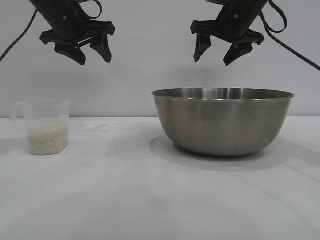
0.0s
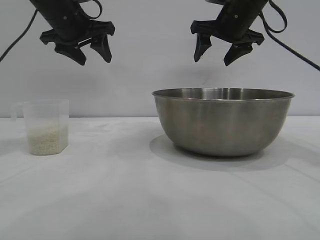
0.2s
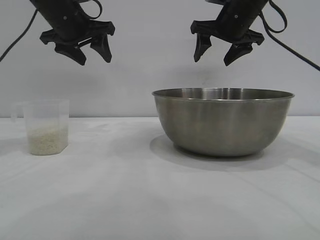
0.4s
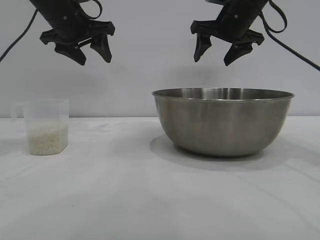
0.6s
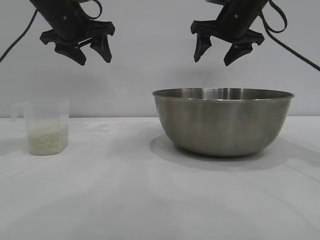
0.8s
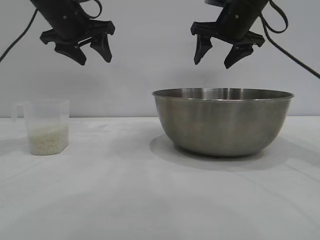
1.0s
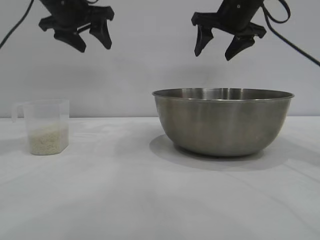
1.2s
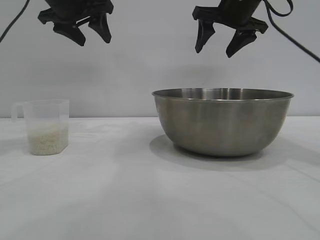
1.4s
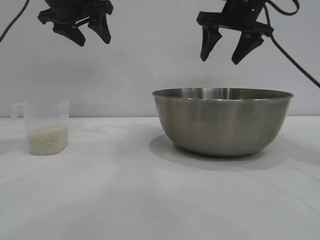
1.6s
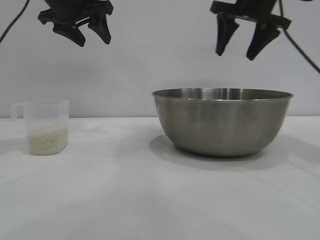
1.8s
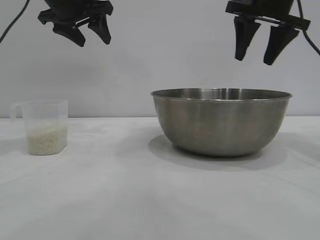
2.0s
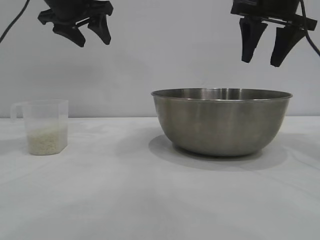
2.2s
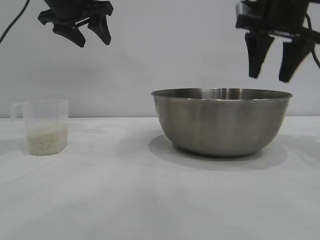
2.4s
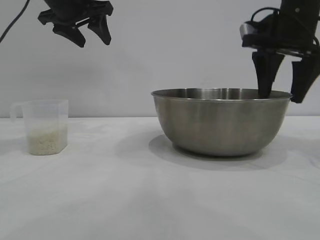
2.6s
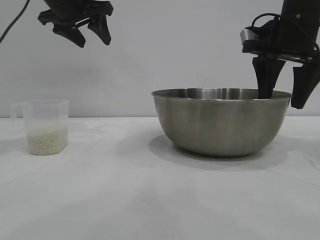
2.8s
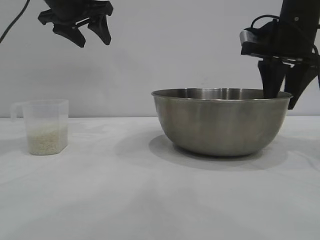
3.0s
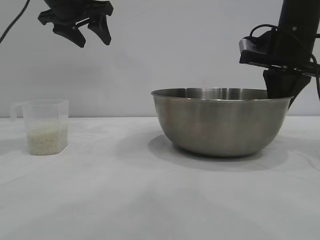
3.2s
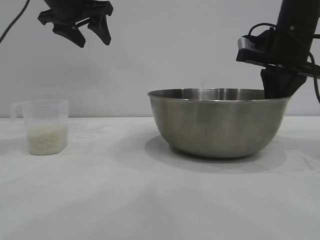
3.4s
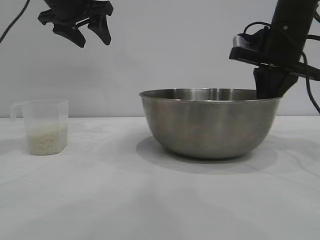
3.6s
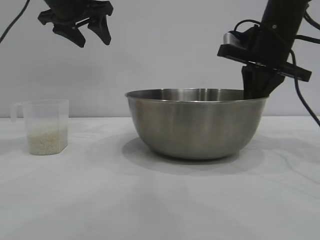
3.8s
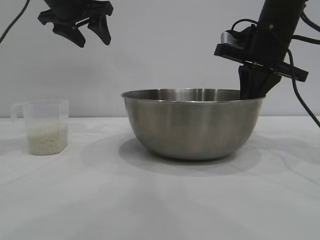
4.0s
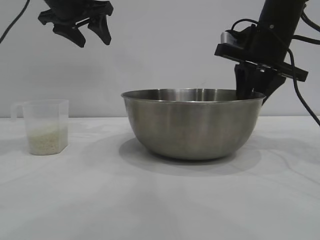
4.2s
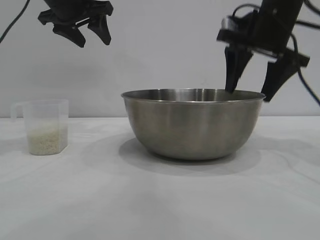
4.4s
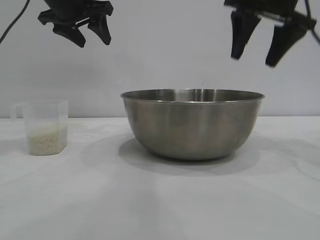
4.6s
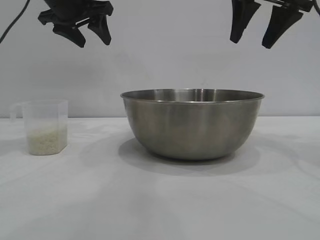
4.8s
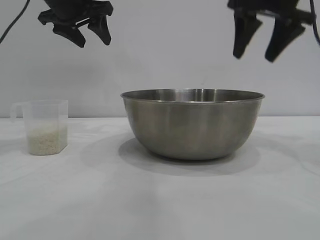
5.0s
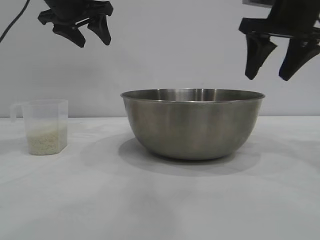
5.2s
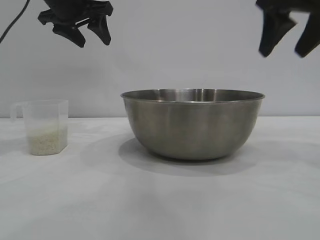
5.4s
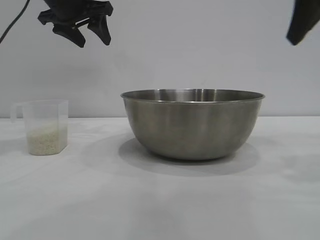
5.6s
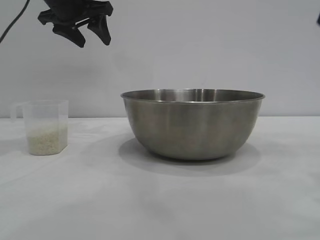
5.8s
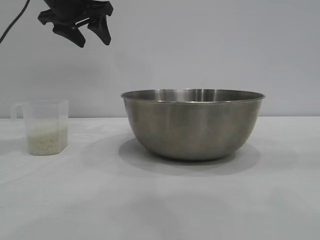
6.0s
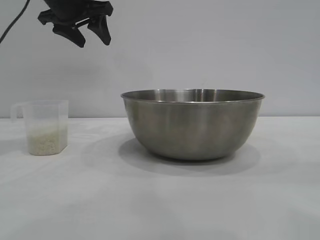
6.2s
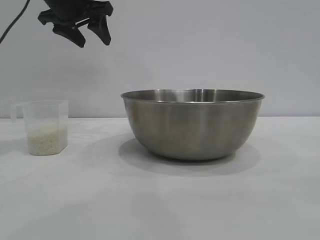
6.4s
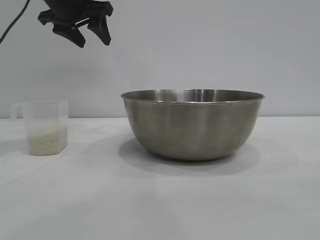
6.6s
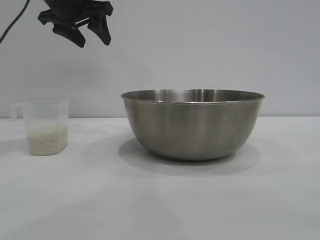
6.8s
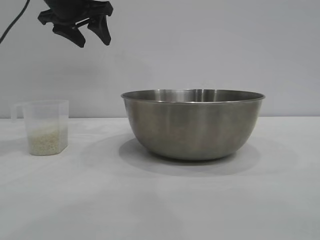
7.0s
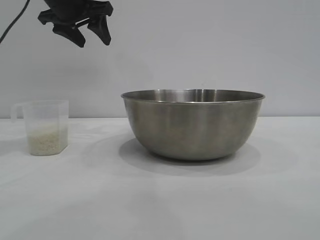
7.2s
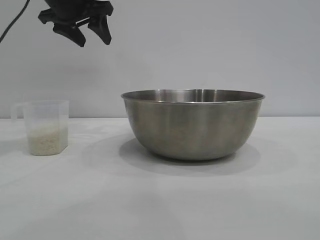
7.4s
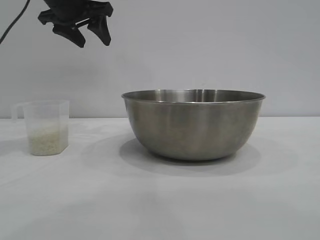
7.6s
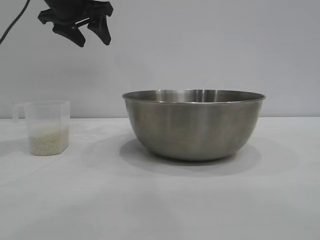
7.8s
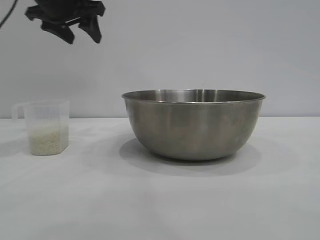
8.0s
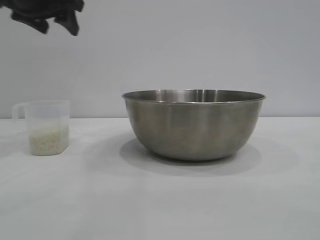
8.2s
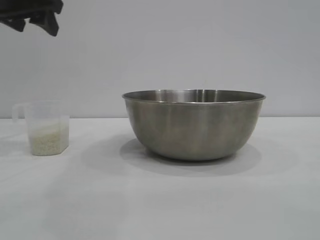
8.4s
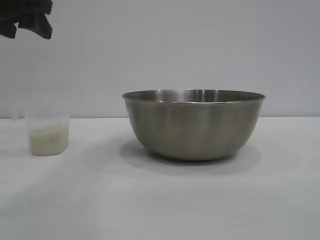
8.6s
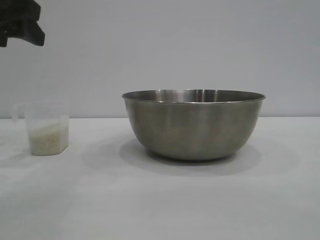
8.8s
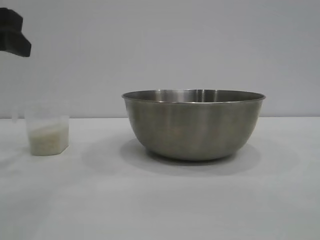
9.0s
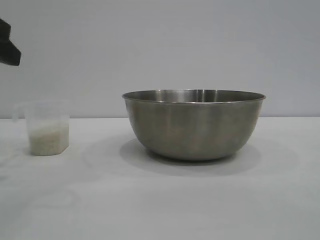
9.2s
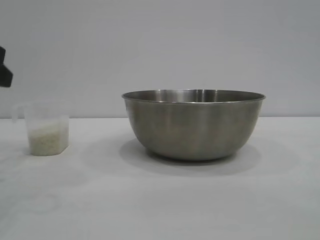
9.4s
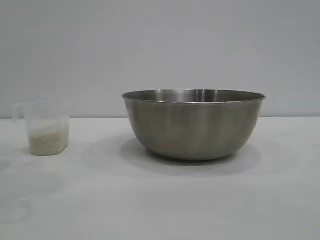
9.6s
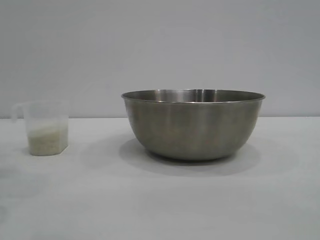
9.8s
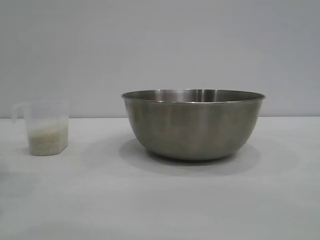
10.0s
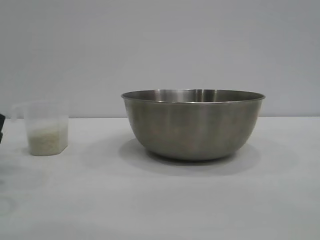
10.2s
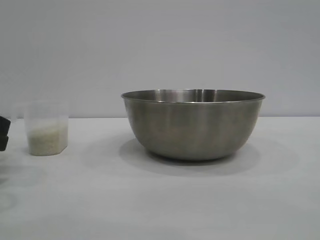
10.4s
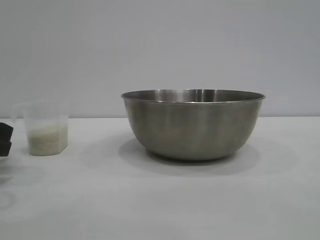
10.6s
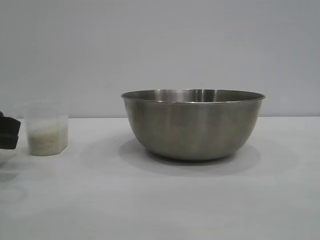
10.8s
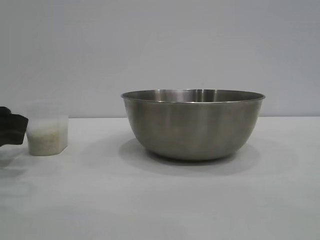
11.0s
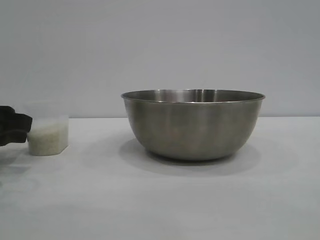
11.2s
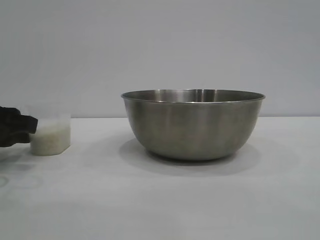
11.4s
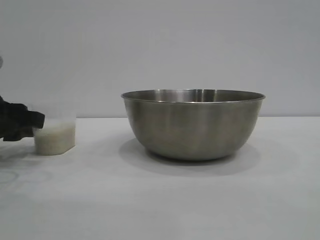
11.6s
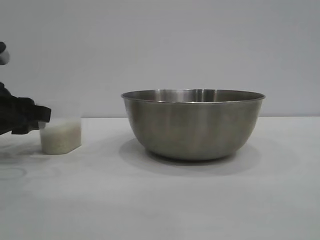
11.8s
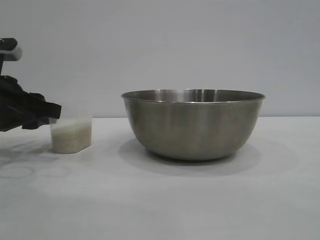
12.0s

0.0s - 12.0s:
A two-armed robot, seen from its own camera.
Task of the whole recording: the right gripper grasp the rice container and place it in the center of the table, the left gripper grasp the rice scoop and pour the rice into the rice container.
Step, 0.0s - 4.4s: Move the bowl to the center of view with the right gripper.

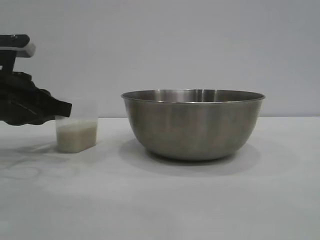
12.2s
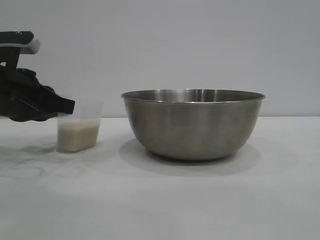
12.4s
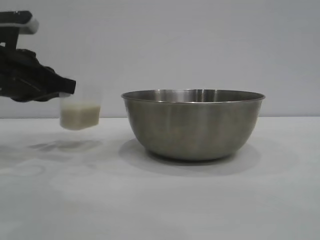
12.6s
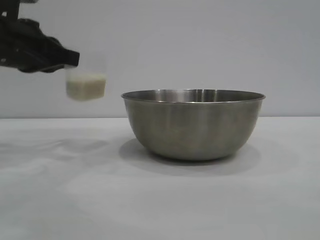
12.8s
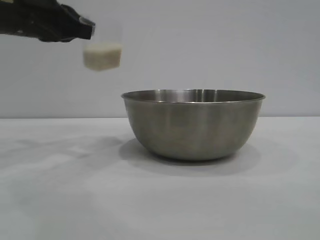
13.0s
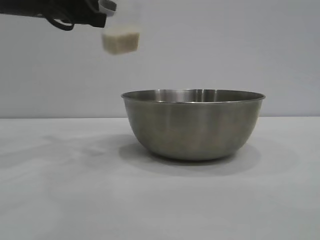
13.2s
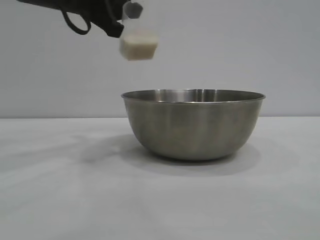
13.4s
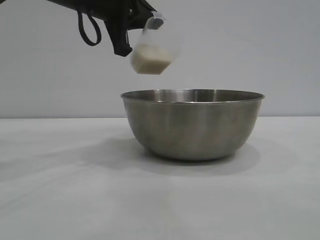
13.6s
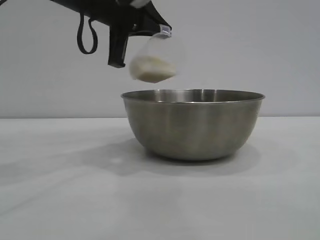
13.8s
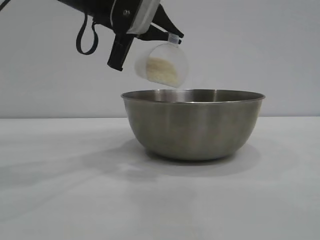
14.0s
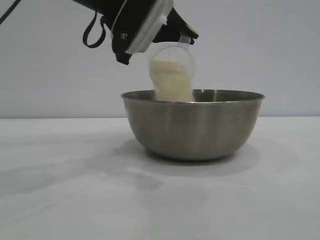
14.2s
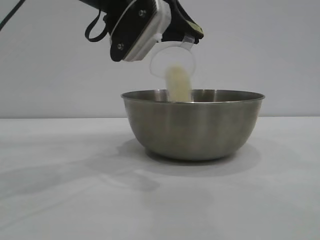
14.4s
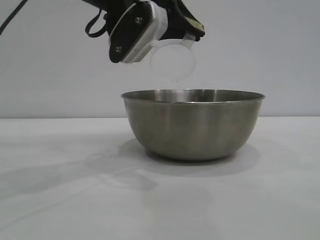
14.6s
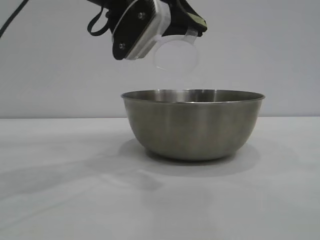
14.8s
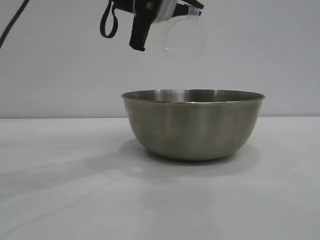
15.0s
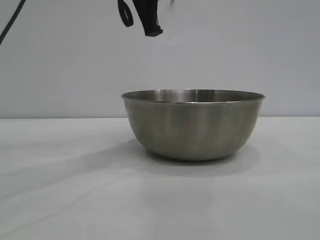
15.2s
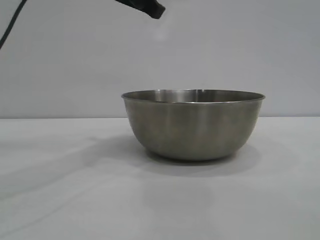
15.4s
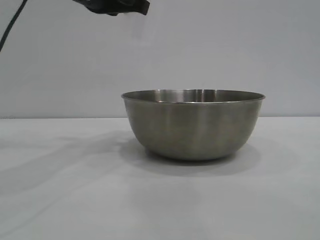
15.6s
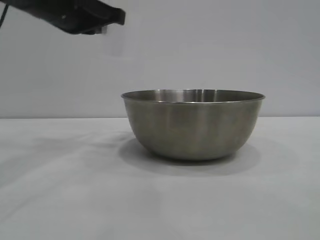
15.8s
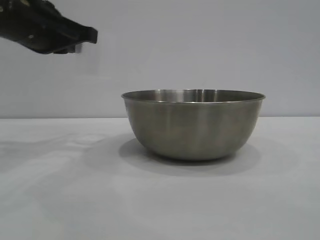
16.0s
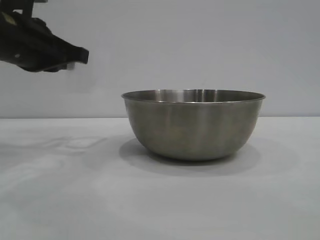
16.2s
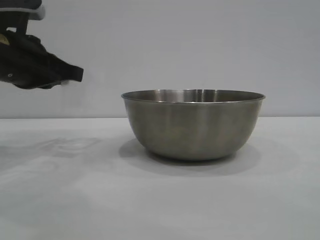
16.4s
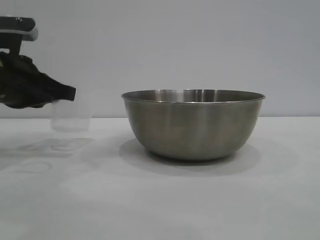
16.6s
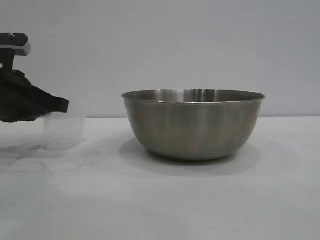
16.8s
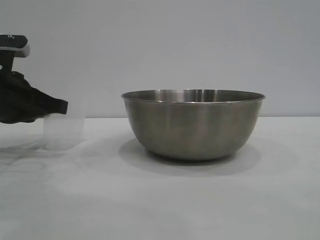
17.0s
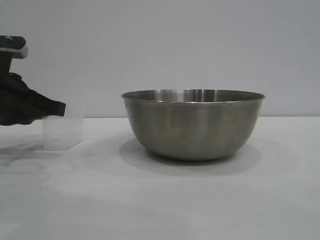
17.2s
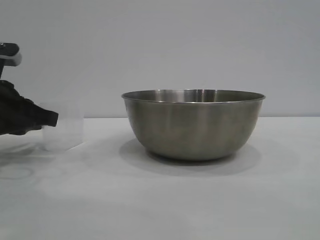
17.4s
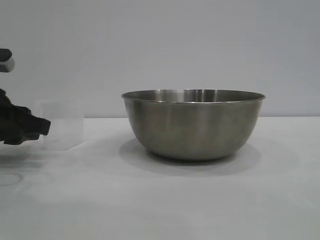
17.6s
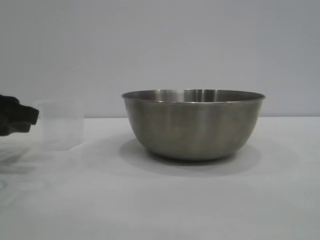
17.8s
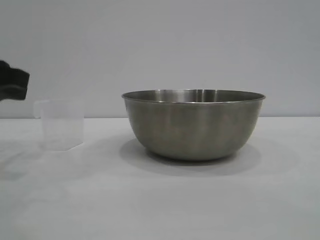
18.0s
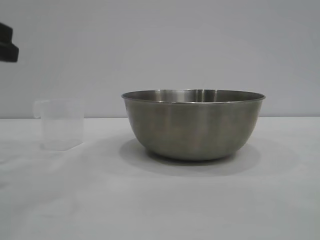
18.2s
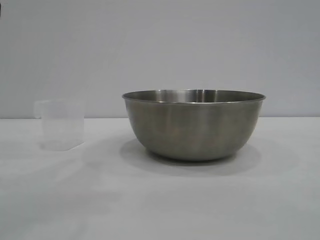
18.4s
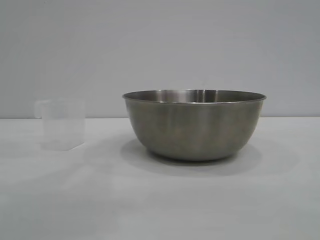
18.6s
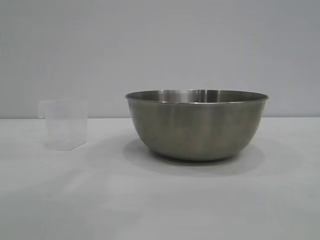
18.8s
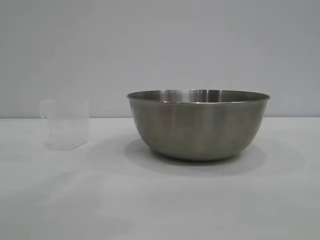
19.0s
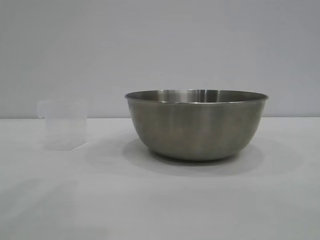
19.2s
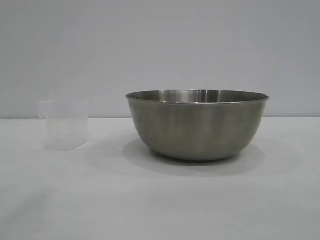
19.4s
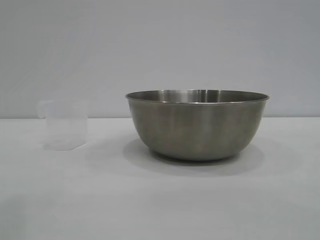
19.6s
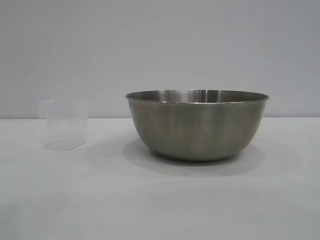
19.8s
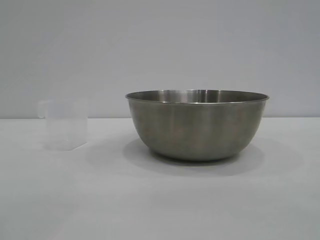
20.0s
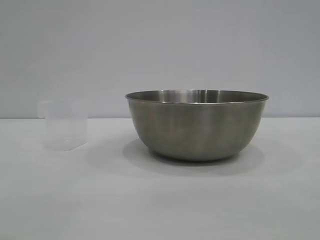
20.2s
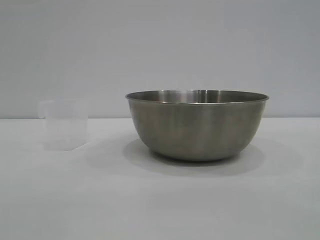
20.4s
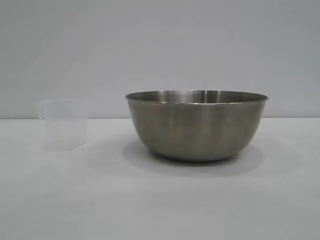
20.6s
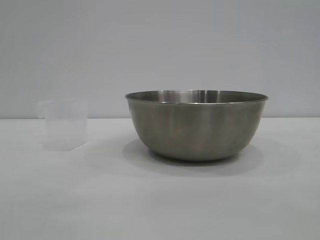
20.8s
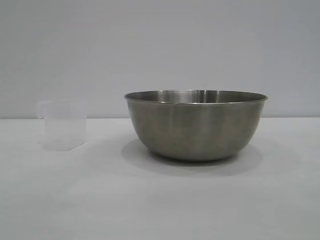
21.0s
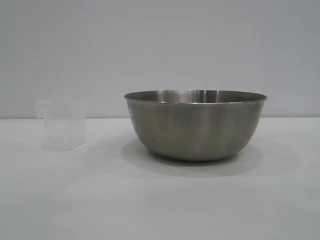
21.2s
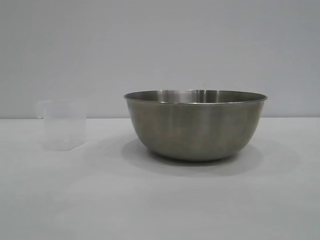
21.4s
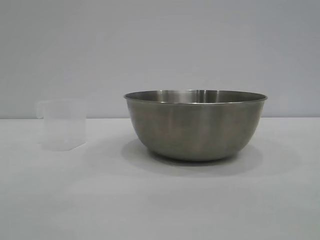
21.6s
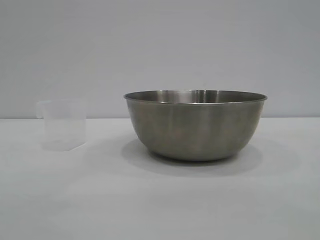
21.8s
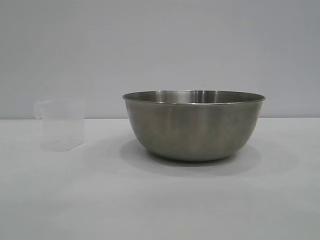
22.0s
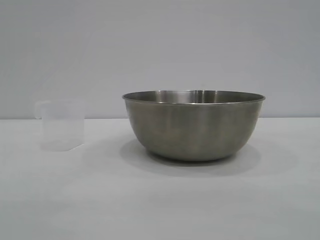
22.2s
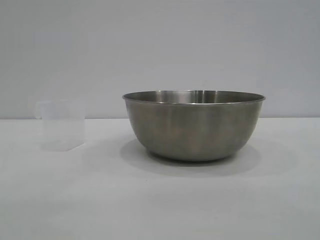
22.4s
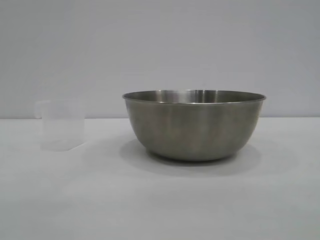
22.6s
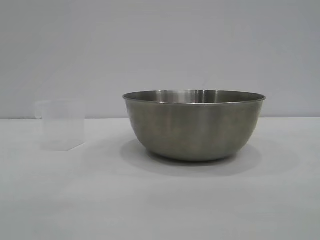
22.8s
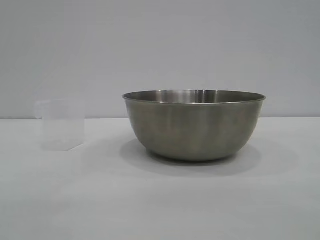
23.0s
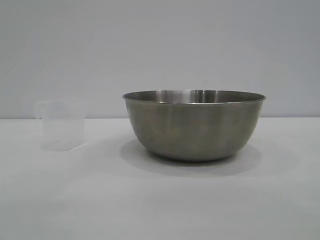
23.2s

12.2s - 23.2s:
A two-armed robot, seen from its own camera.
Task of the whole recording: the right gripper grasp the rice container and place it in the center of the table, the left gripper grasp the rice scoop and pour the rice into the rice container.
Step, 12.8s - 15.6s: Pour the rice from the cup into the bowl with the left gripper.
Step, 15.8s - 17.8s: Place the cup on the table with the left gripper.
